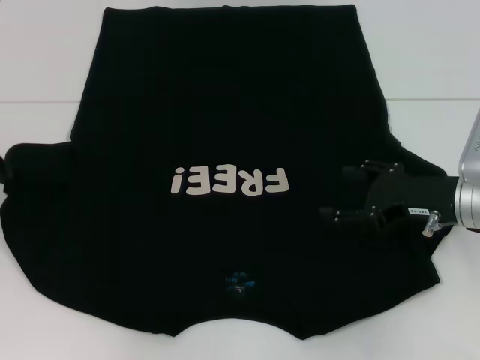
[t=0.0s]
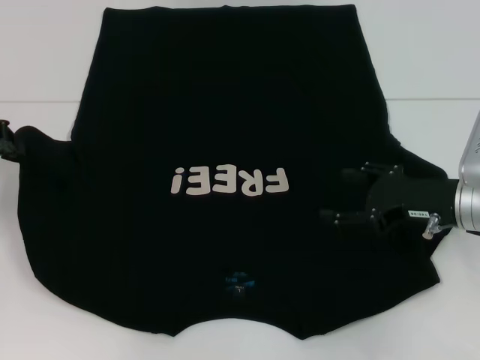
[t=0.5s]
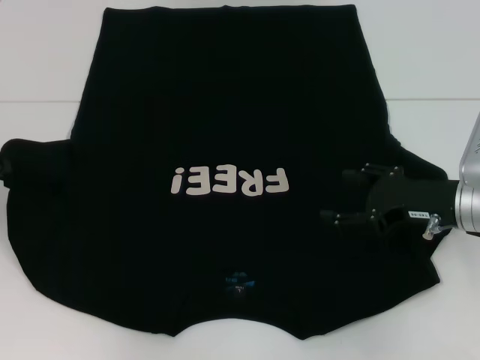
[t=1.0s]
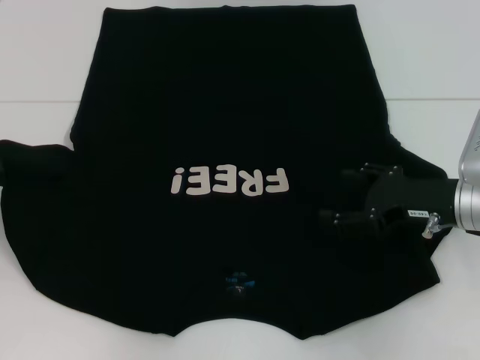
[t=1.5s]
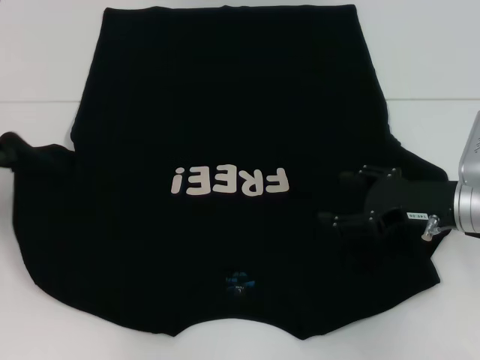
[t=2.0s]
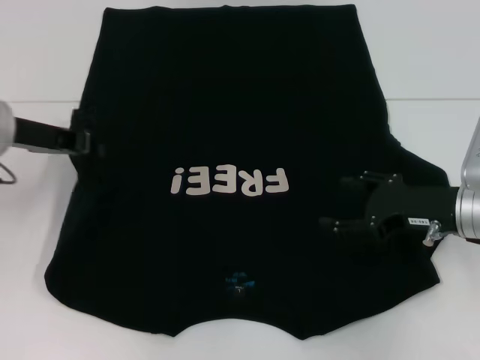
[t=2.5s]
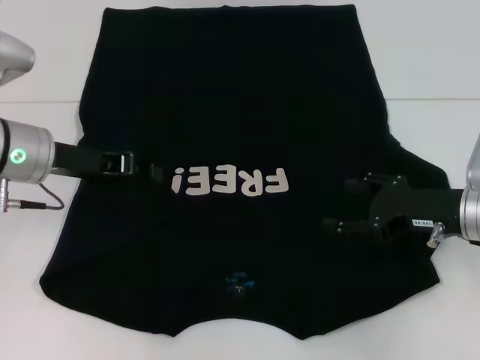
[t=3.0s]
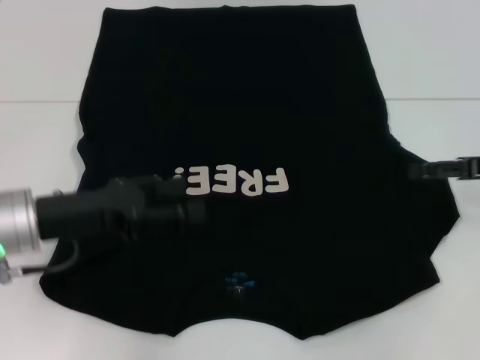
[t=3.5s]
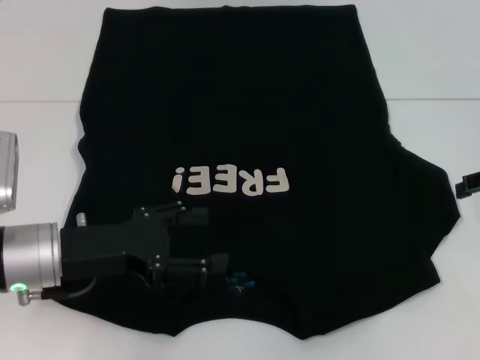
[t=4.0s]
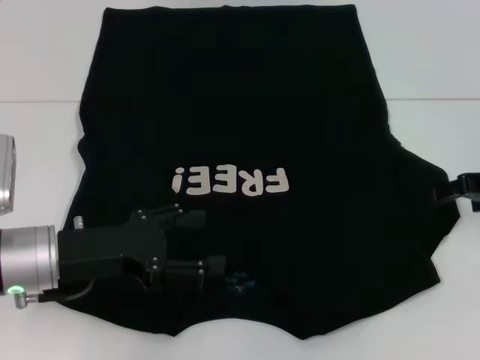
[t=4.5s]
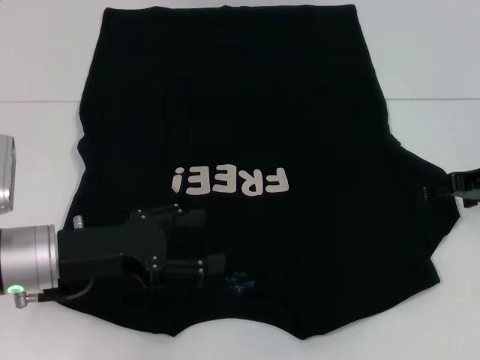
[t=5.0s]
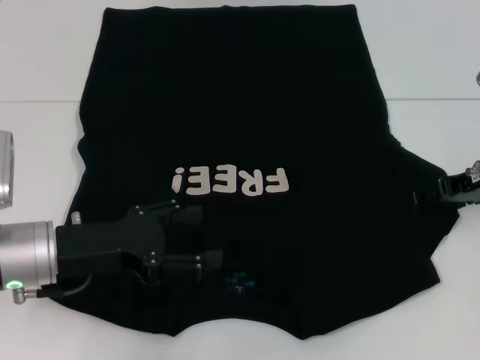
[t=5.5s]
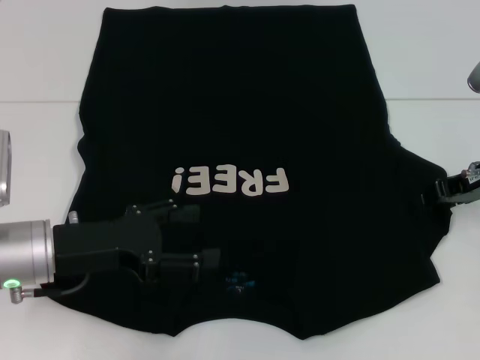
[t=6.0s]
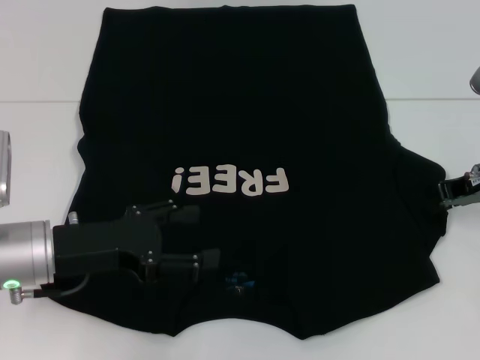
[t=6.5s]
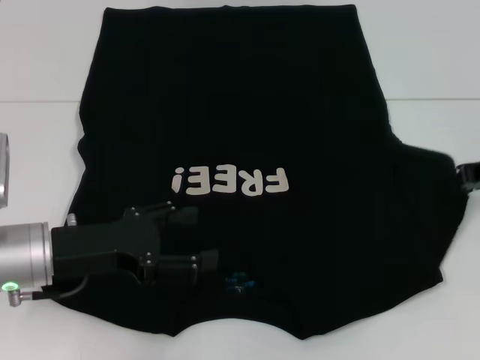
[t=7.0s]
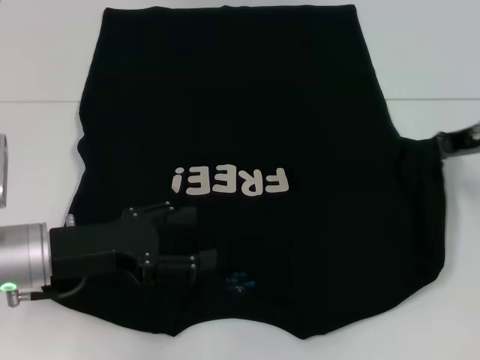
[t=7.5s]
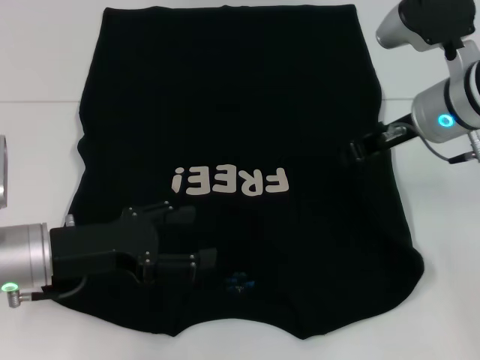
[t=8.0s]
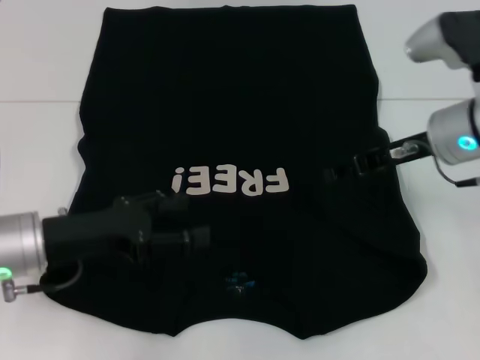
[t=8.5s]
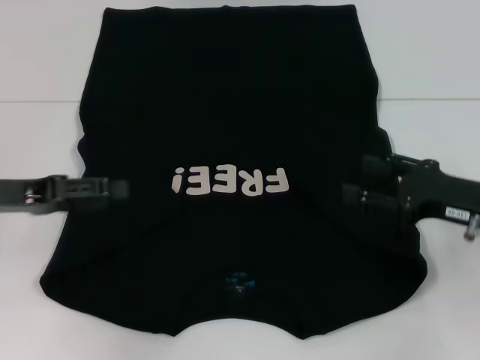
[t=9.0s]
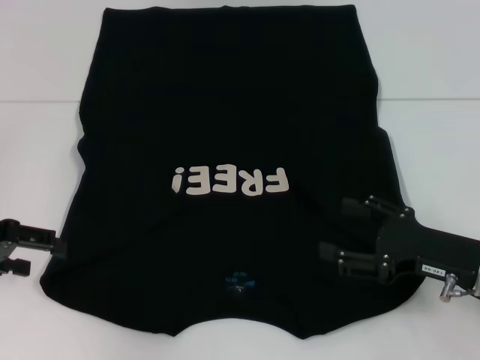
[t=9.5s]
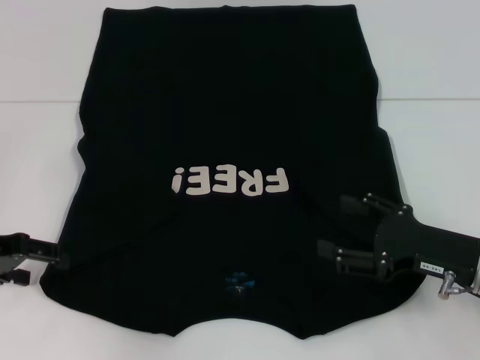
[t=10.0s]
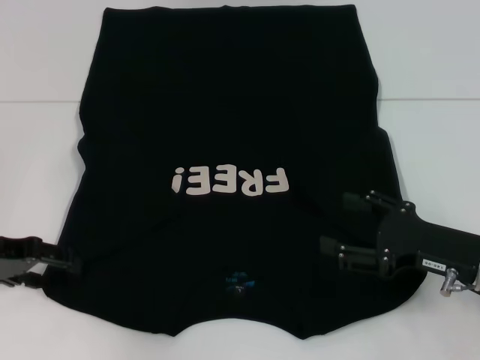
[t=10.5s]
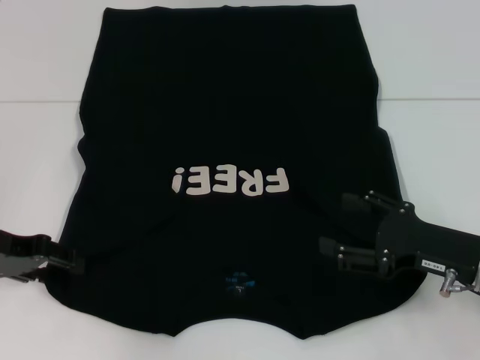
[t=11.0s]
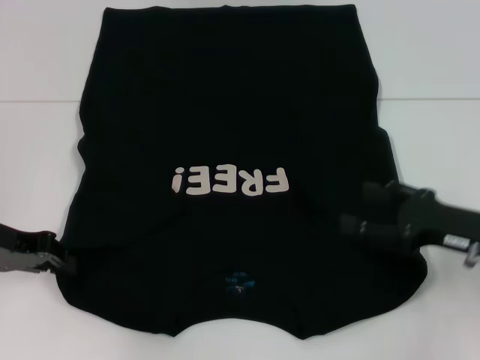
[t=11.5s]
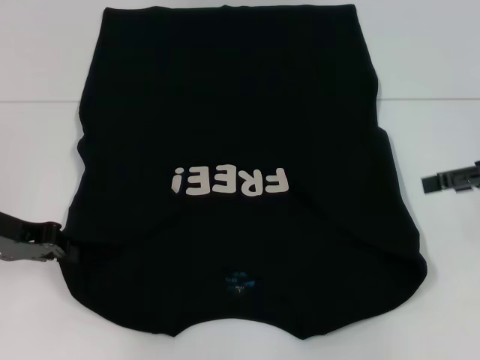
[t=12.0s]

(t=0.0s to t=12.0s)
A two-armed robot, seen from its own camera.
Step, t=0.0s - t=3.0s: Fold the bottom left sleeve with your left hand.
Step, t=3.5s - t=8.0s: Fold the bottom right sleeve with your right hand.
Step, t=8.5s - t=11.5s: Grab the bottom left corner with your left hand.
t=0.0s - t=2.0s: The grippers stay close to where they were, moving slightly.
t=2.0s - t=4.0s: The left gripper moves to the right, backward and downward, about 15 cm, and opens its fingers. The right gripper moves to the right and upward, about 10 cm.
t=4.0s - t=6.0s: The right gripper is displaced to the left by roughly 5 cm.
t=6.0s - t=8.0s: The right gripper goes about 10 cm to the left, and closes.
t=8.0s - t=10.0s: The right gripper travels backward, downward and to the right by roughly 20 cm, and opens. The left gripper heads to the left, covering approximately 10 cm.
t=10.0s - t=12.0s: The right gripper is displaced upward, to the right and forward by approximately 15 cm. The left gripper closes.

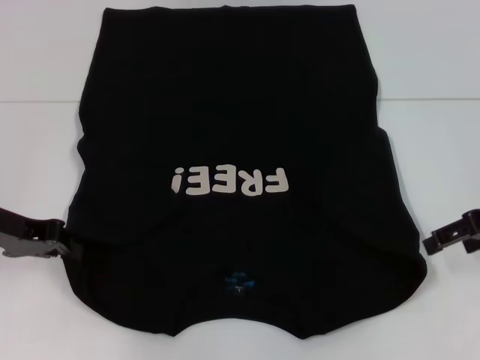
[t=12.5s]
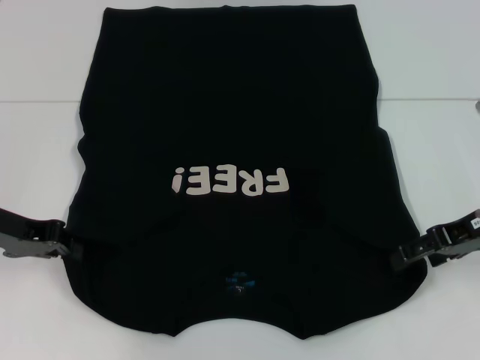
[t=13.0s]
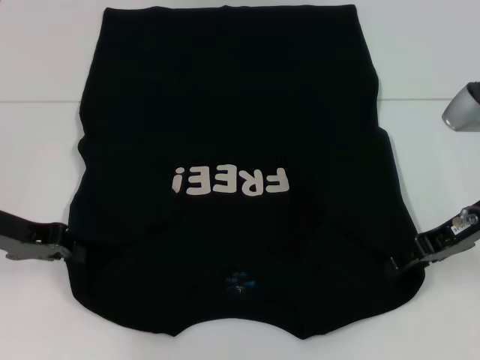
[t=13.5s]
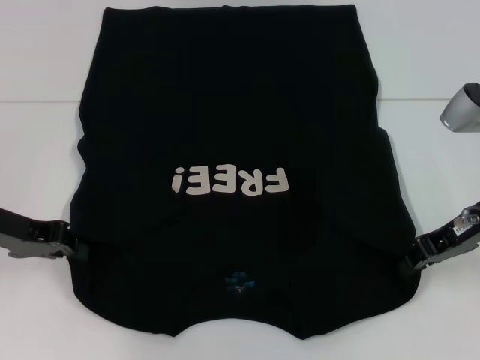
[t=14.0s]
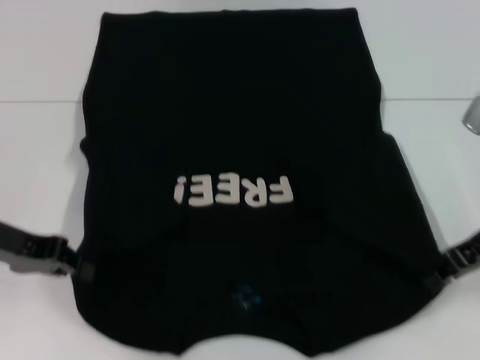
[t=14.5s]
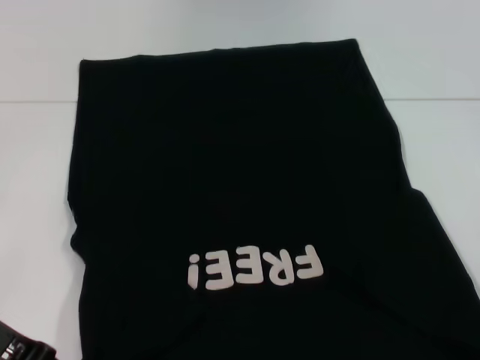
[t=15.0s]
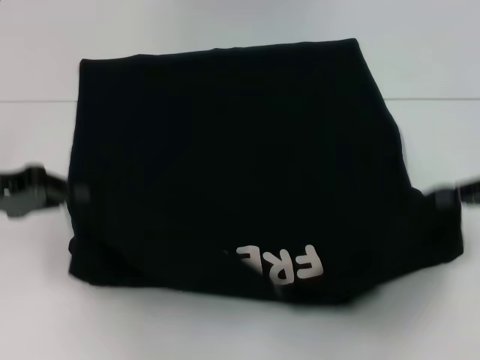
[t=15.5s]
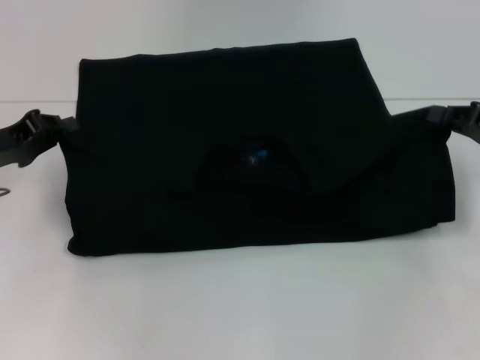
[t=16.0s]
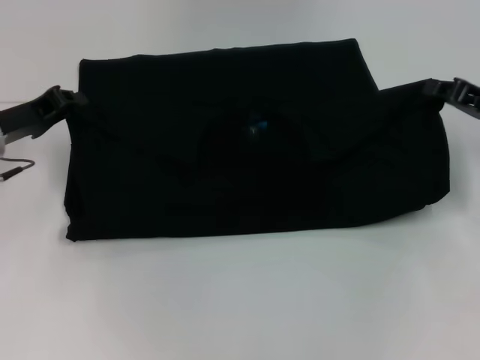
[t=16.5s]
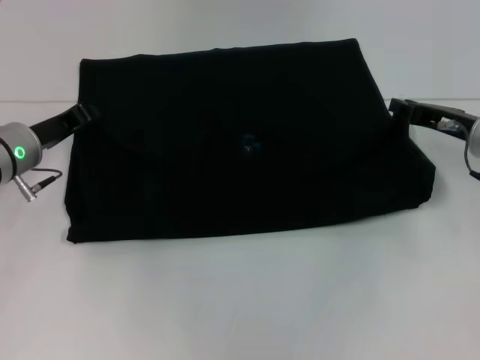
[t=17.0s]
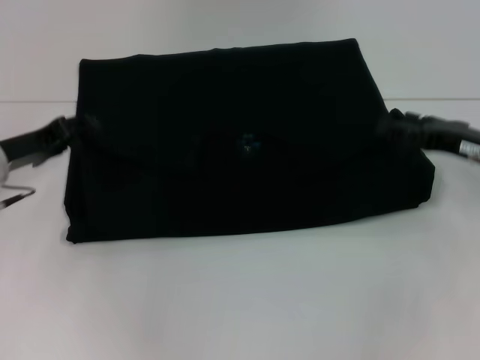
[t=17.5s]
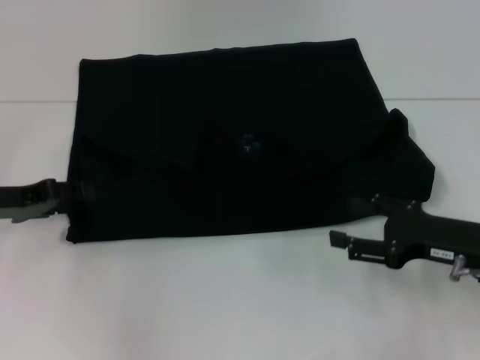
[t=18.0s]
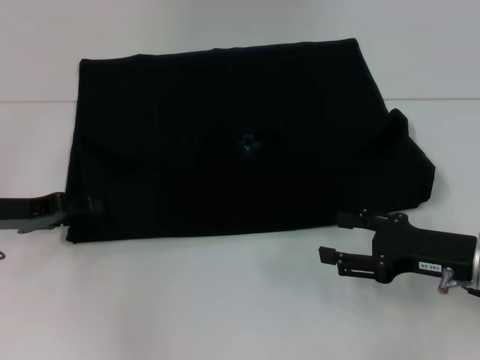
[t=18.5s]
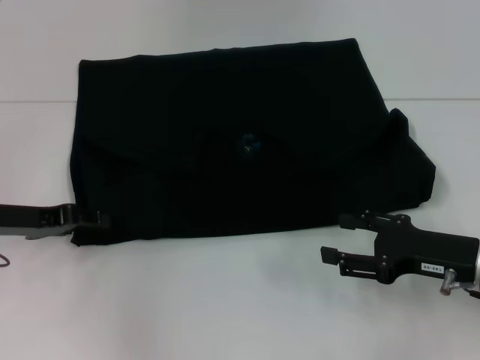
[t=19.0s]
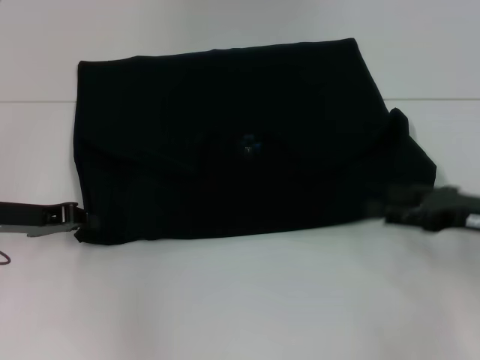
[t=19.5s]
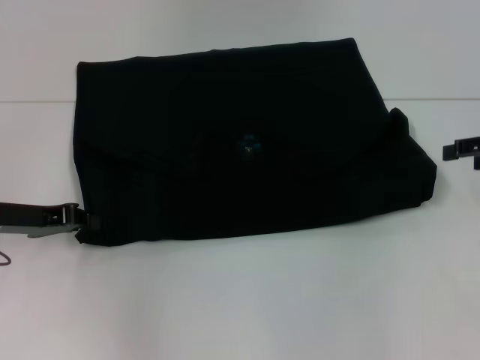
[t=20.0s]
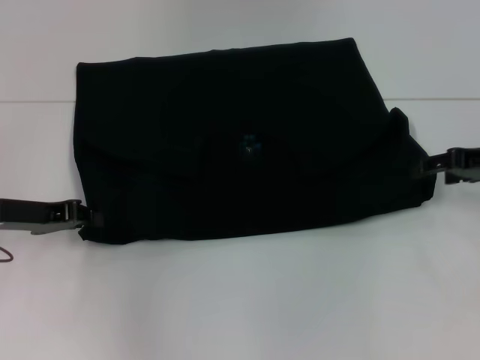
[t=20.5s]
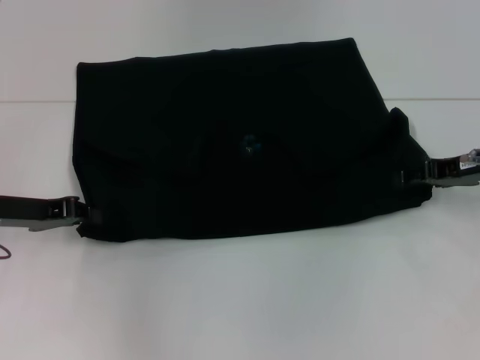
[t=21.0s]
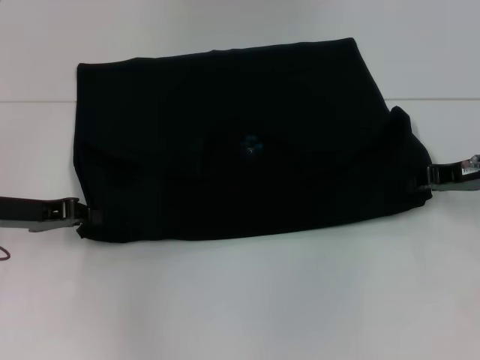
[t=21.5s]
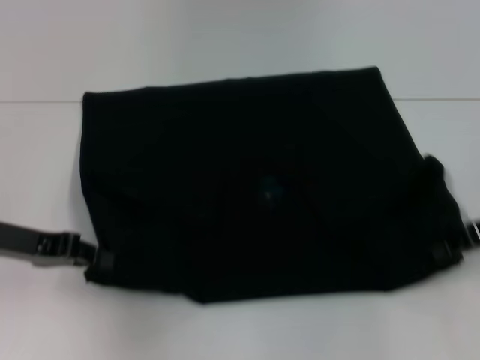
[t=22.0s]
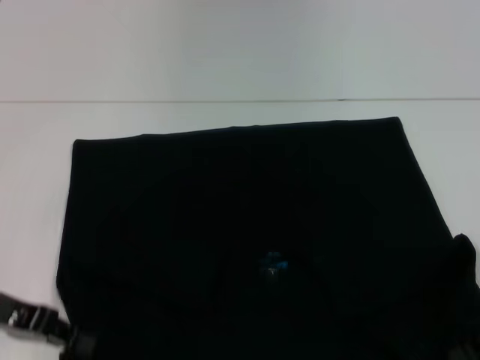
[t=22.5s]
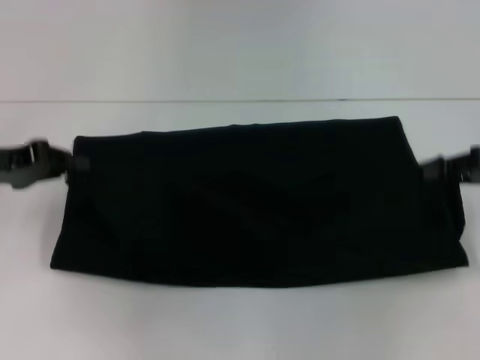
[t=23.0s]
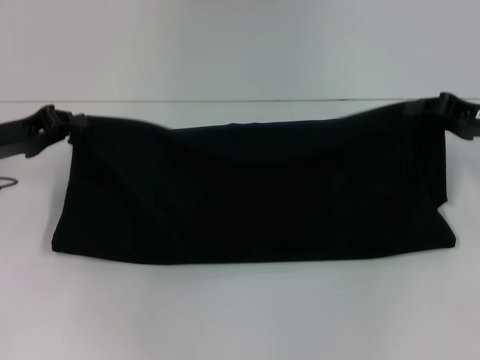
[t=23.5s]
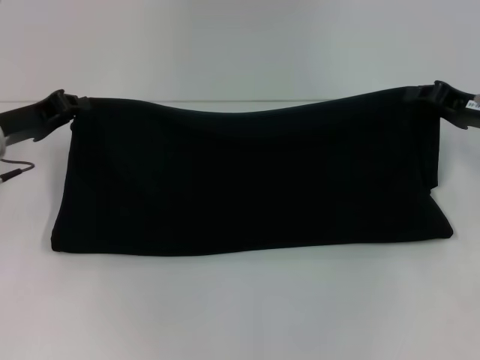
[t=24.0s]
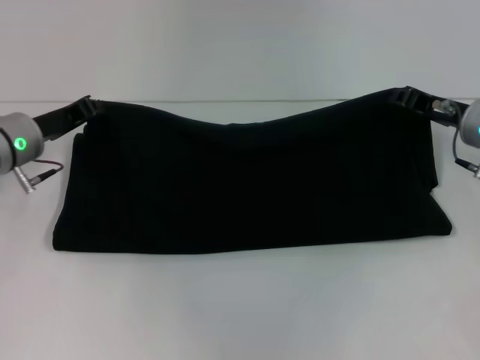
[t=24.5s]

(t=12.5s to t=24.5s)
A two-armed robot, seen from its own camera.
Step, t=12.5s - t=14.5s: Grab the bottom right corner with your right hand.
Step, t=15.0s - t=17.0s: Fold the clothes with your left hand.
Step, t=15.0s - t=17.0s: Fold the clothes with your right hand.
Step, t=17.5s - t=22.0s: Pull the clothes with your left hand.
Step, t=17.5s - t=22.0s: Pull the clothes with your right hand.
t=12.5s - t=14.5s: The right gripper closes its fingers.
t=14.5s - t=16.5s: The right gripper moves some 5 cm. The left gripper is displaced forward by roughly 5 cm.
t=16.5s - t=18.5s: The right gripper travels backward, downward and to the left by roughly 15 cm, and opens its fingers, while the left gripper ends up about 5 cm from where it was, and opens up.
t=18.5s - t=20.5s: The left gripper closes. The right gripper moves forward, upward and to the right, roughly 15 cm.
t=20.5s - t=22.5s: The right gripper moves backward, some 10 cm, and closes up. The left gripper moves backward, roughly 5 cm.
t=22.5s - t=24.5s: The left gripper shifts about 10 cm forward, while the right gripper heads forward and to the left, covering approximately 15 cm.

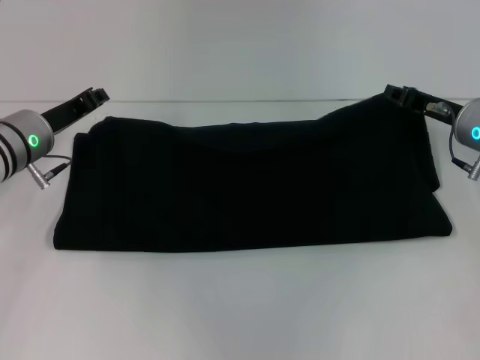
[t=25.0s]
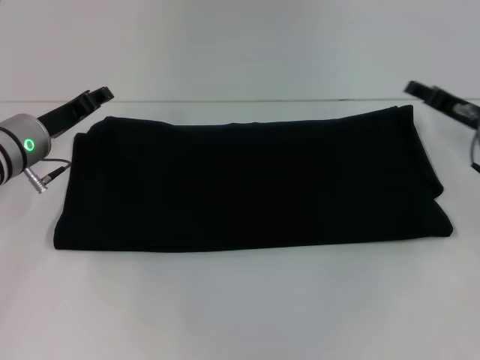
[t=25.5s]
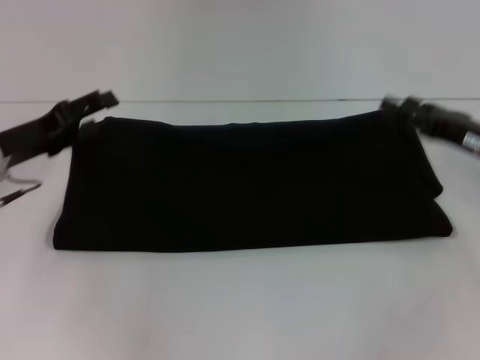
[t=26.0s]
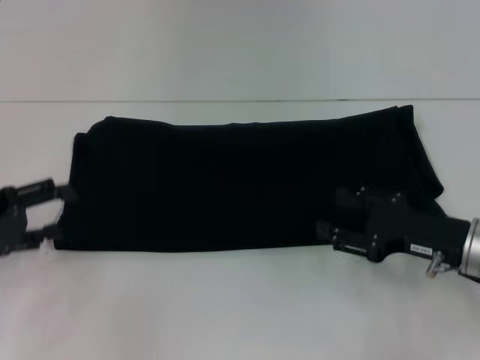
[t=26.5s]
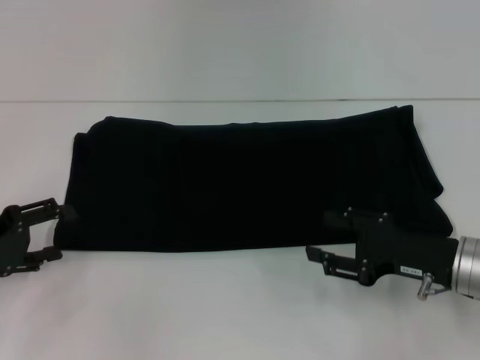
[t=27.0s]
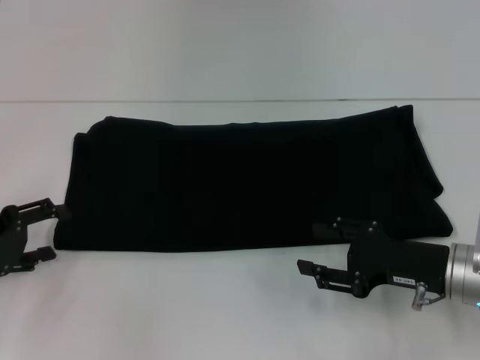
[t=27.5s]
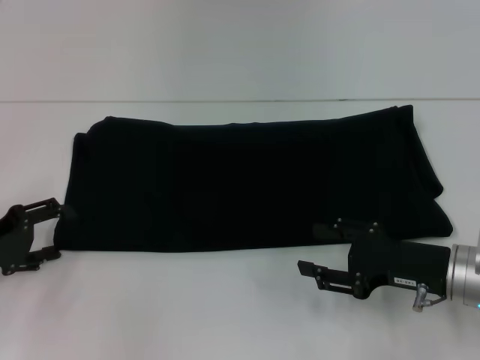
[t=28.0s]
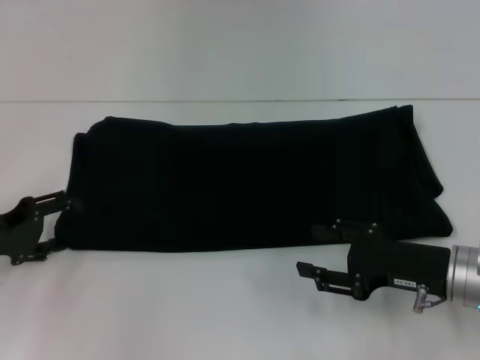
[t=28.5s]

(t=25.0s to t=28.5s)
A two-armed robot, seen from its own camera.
t=25.0s - t=27.0s: The left gripper is displaced backward and to the left by some 15 cm, and opens. The right gripper shifts some 15 cm backward, and opens up.
t=27.0s - t=28.5s: The grippers move only a little.
